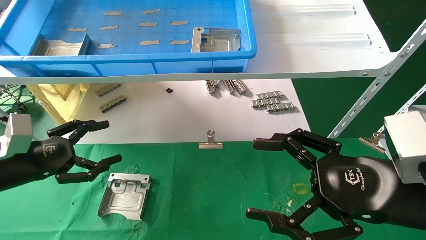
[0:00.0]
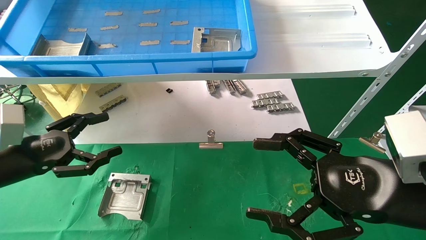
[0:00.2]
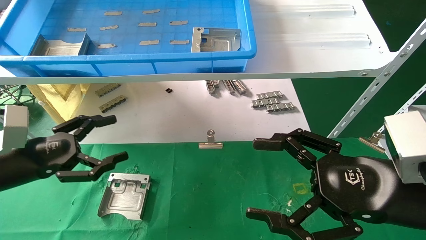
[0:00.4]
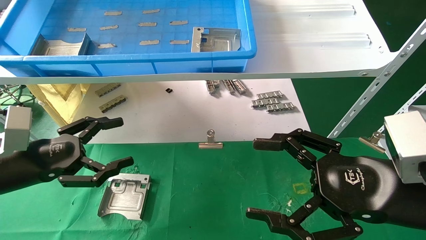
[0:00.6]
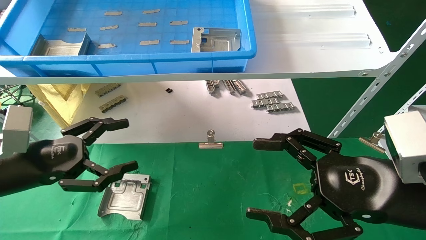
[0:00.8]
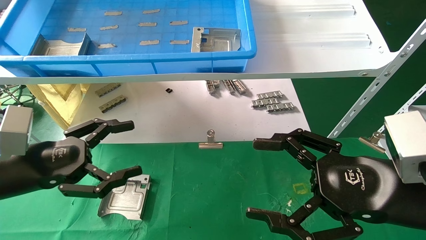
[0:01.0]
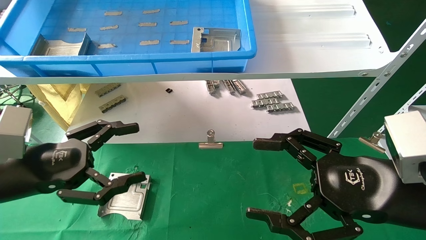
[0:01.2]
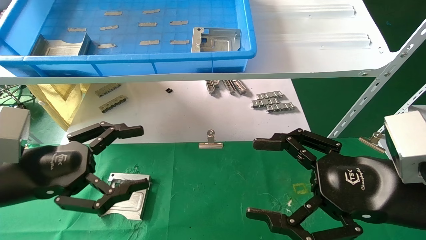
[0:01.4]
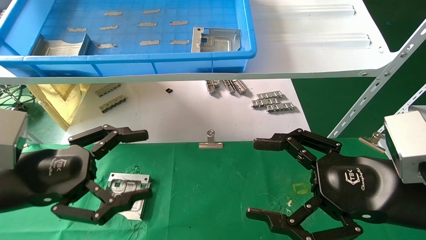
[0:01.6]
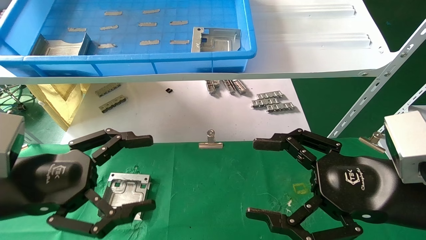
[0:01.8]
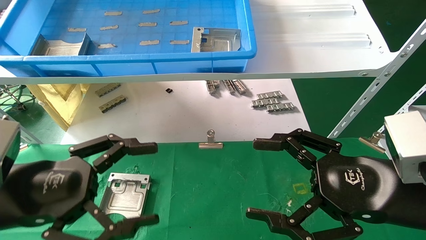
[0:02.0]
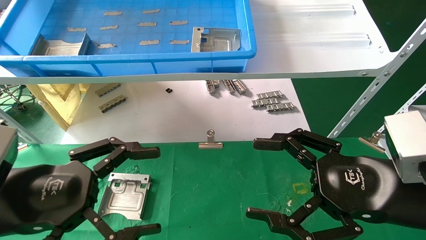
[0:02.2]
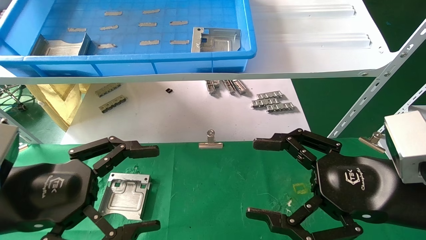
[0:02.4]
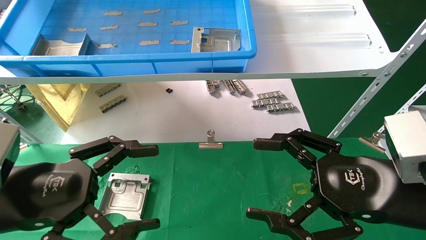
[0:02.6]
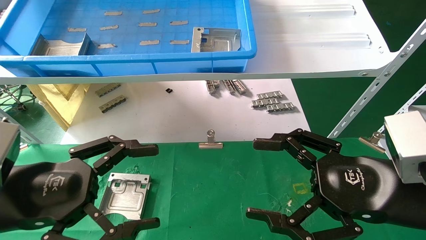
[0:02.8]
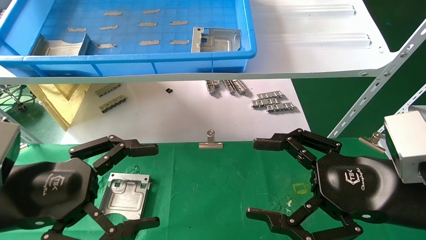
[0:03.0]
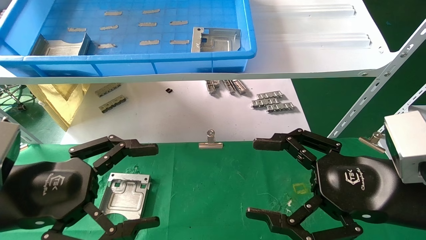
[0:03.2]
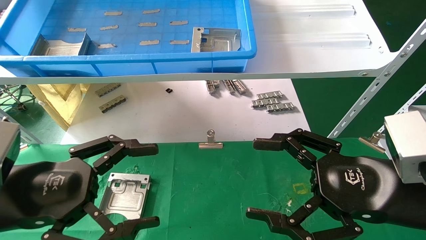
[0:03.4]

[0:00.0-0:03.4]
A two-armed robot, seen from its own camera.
Task of the whole recording: use the mechanical arm to pick up the parts and place them on the table.
0:00.0 to 0:01.6: The left gripper shifts approximately 10 cm to the right and backward.
0:01.6 to 0:03.4: The grippers make only small movements.

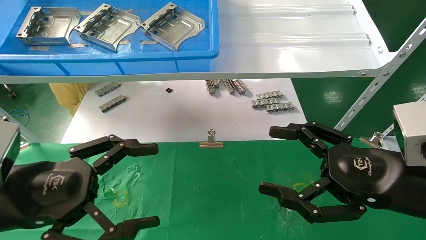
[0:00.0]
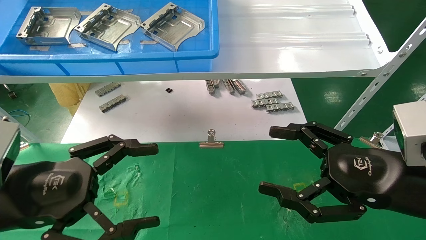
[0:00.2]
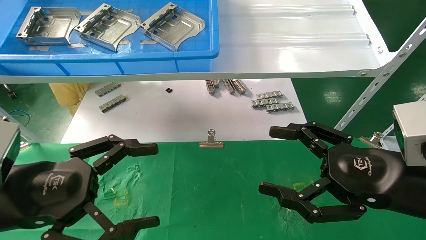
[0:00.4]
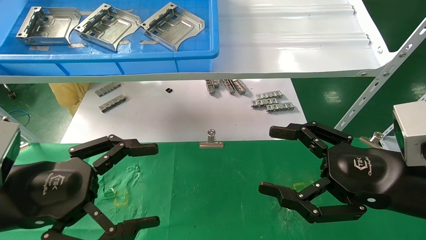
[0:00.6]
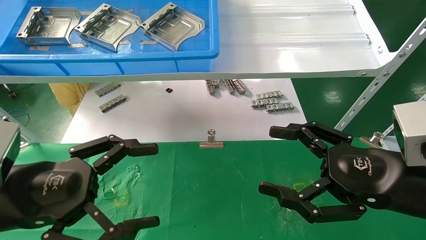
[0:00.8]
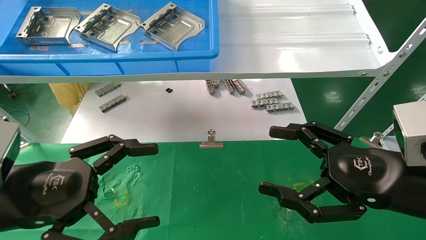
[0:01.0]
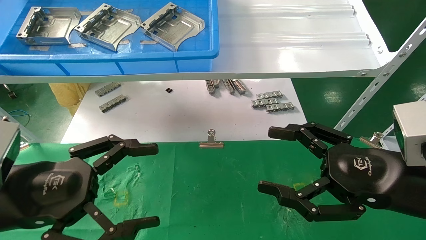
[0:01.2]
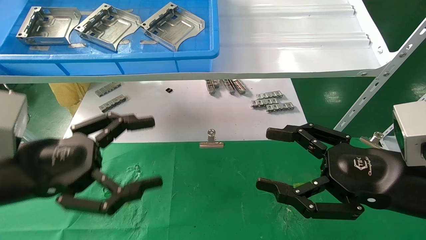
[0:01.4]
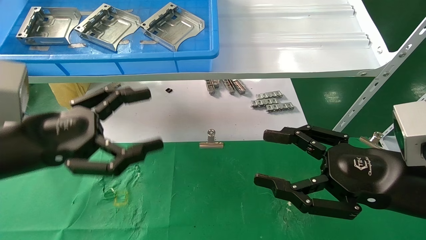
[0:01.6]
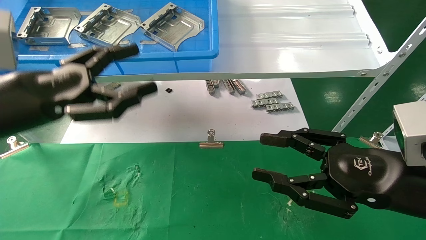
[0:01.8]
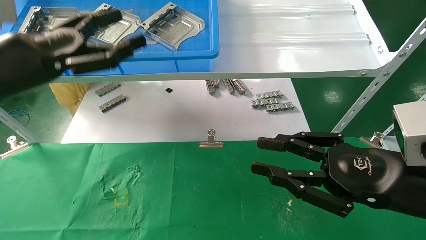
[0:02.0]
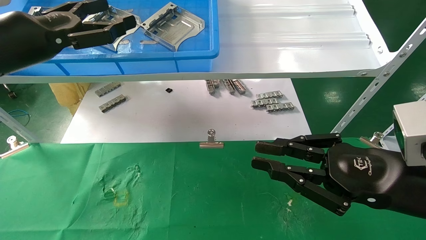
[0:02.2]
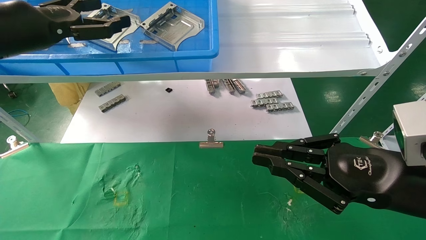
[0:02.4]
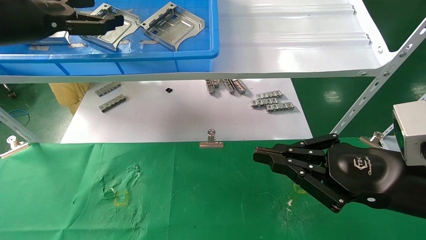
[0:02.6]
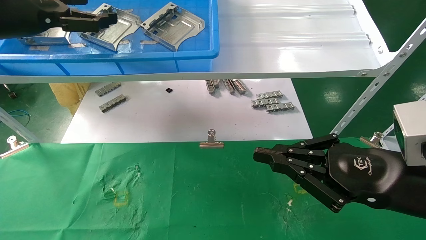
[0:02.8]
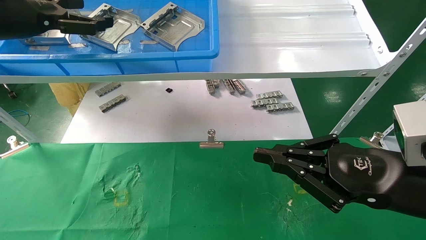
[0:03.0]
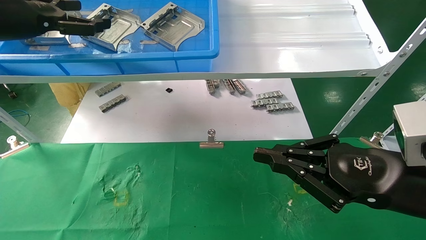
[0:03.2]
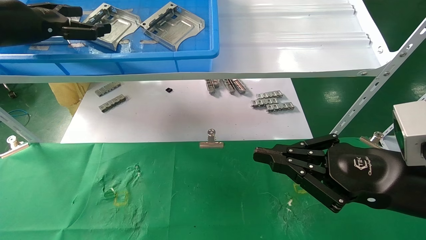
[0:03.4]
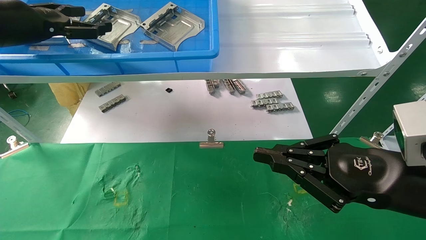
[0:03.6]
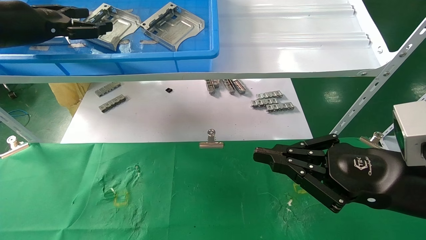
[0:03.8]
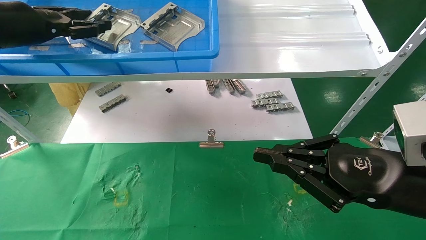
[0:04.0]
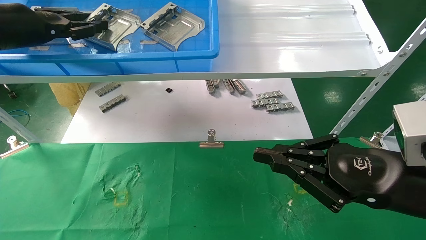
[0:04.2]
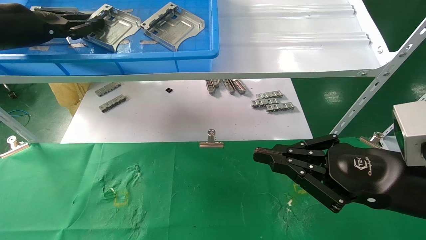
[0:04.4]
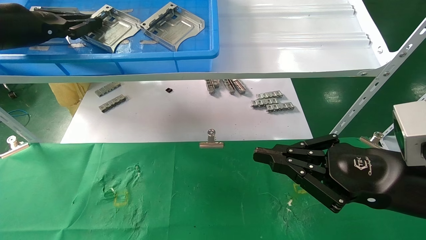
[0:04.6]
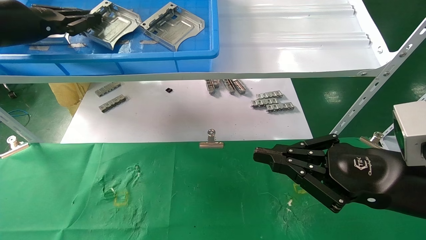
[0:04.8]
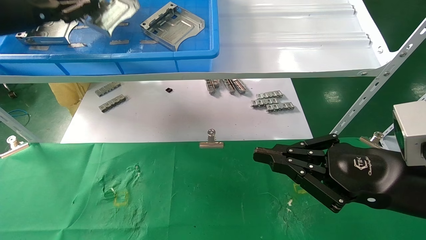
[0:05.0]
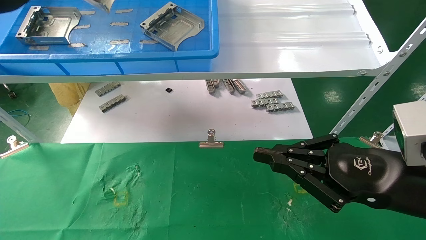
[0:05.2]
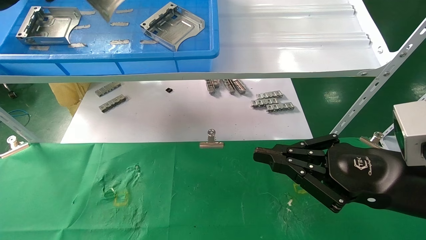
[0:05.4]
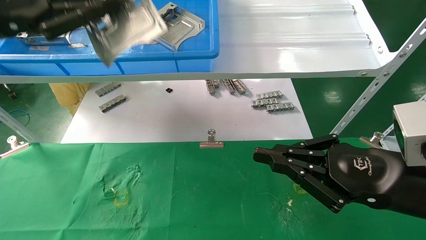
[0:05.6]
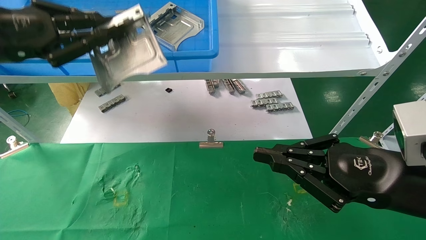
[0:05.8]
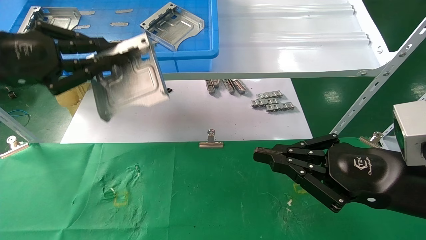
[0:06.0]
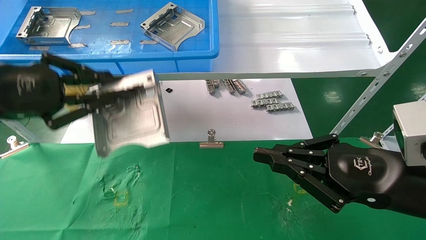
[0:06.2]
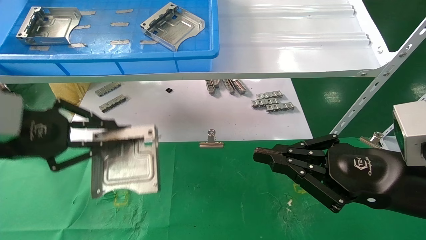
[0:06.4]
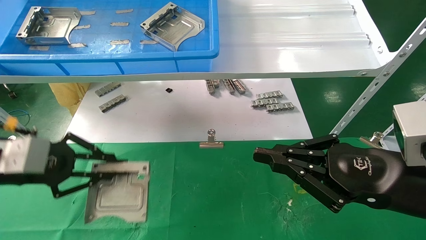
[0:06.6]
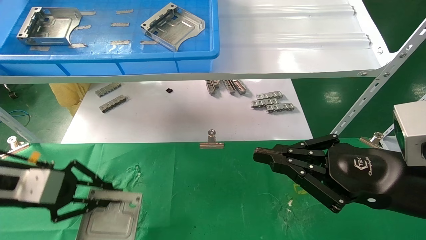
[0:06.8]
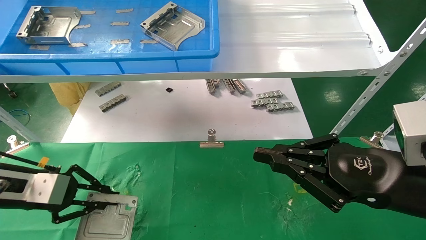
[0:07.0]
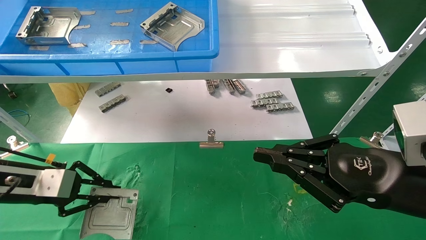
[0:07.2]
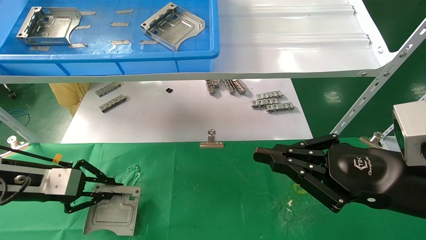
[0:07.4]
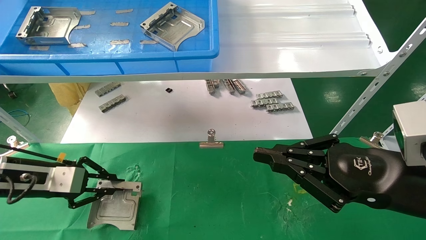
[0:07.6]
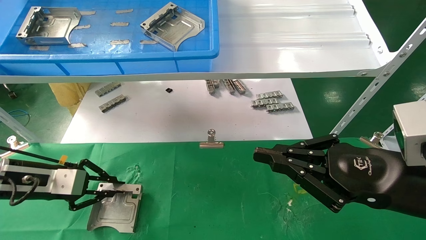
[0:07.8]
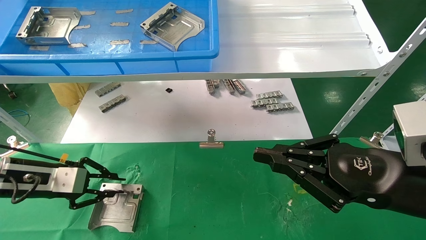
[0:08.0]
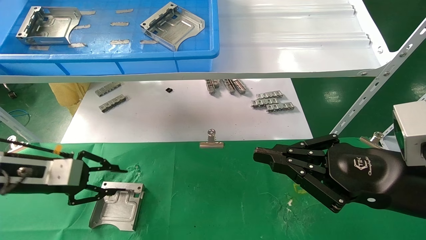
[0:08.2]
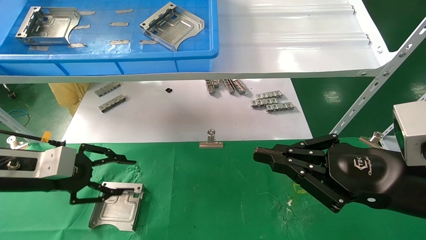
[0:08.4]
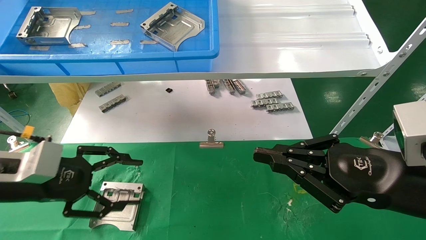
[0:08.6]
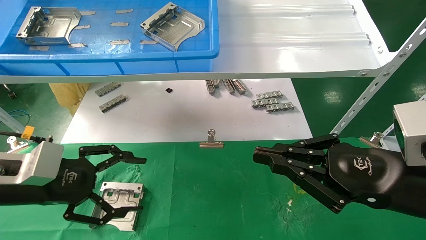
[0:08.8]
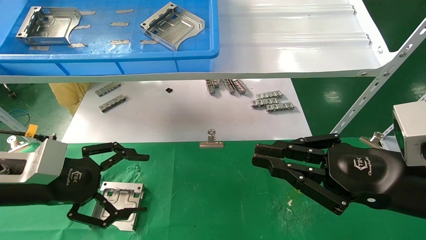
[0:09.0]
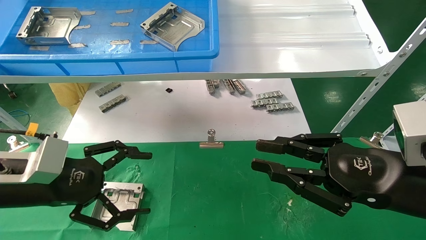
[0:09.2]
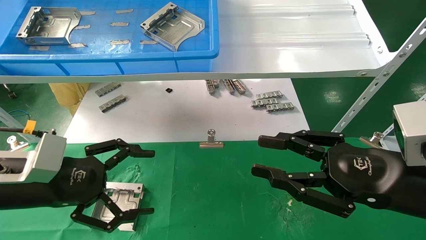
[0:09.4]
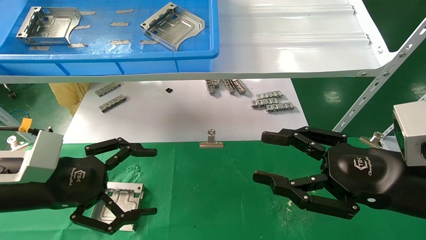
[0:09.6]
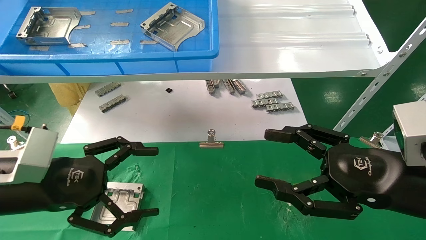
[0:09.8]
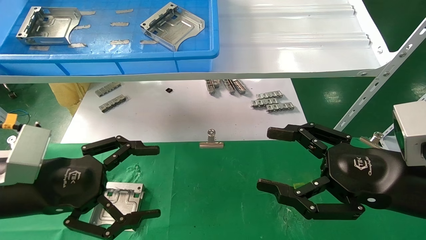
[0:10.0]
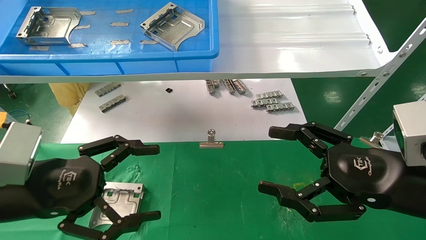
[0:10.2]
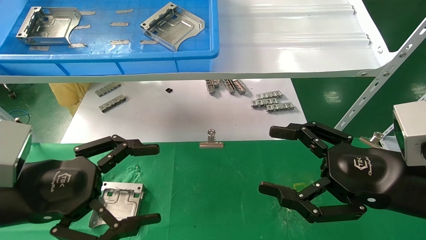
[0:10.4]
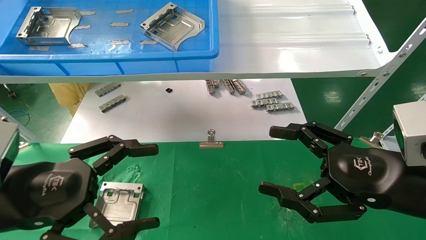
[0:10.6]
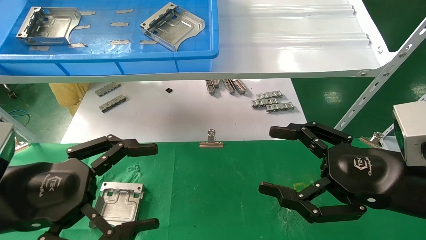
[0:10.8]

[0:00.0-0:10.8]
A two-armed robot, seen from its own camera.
Task of the whole recording: use the mechanical arm to pick up the parts and place them on the table.
Step, 0:01.6 to 0:04.8: Pick up the hard drive bracket from the feeding area.
Step, 0:05.0 to 0:08.2: Place the hard drive bracket into the box.
0:00.0 to 0:01.6: The left gripper changes place by roughly 5 cm.
0:01.6 to 0:03.0: The left gripper goes some 20 cm upward, forward and to the left. Meanwhile the right gripper closes up.
0:03.0 to 0:04.6: The left gripper closes its fingers.
0:04.6 to 0:06.2: The left gripper moves backward and downward, roughly 15 cm.
0:06.2 to 0:07.8: The left gripper goes about 20 cm downward and forward.
0:07.8 to 0:09.2: The left gripper is displaced backward and to the right by approximately 10 cm, and opens up.
0:09.2 to 0:10.8: The right gripper opens its fingers; the left gripper shifts roughly 10 cm backward.

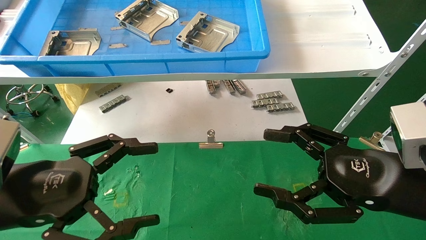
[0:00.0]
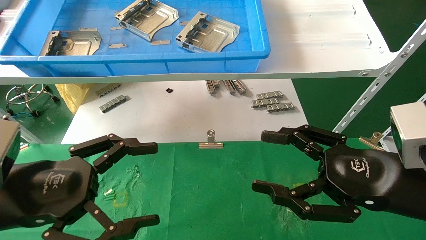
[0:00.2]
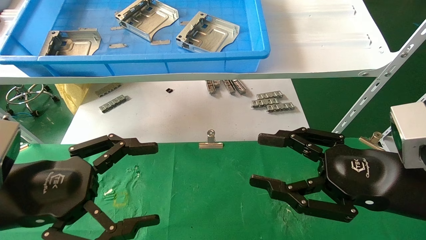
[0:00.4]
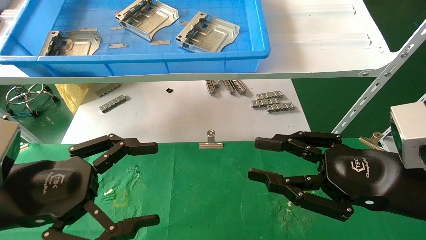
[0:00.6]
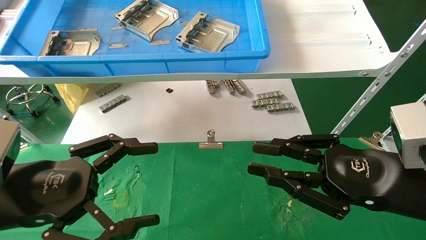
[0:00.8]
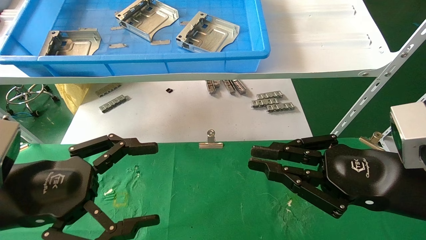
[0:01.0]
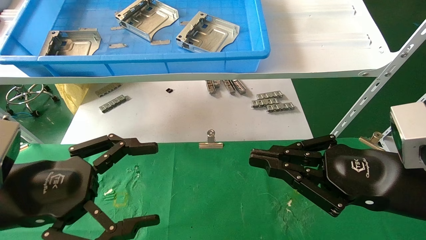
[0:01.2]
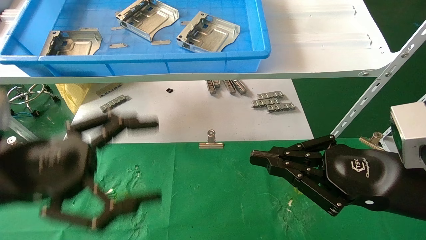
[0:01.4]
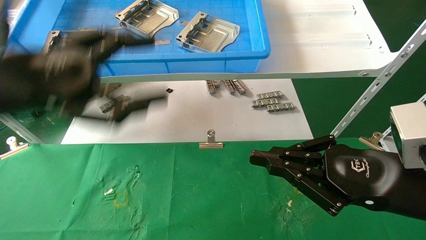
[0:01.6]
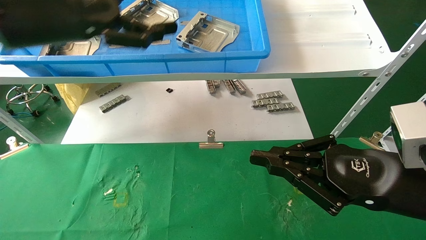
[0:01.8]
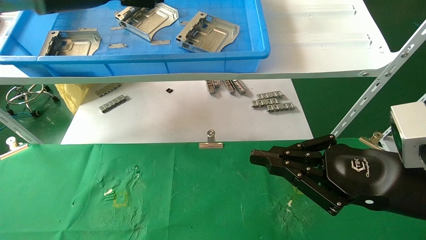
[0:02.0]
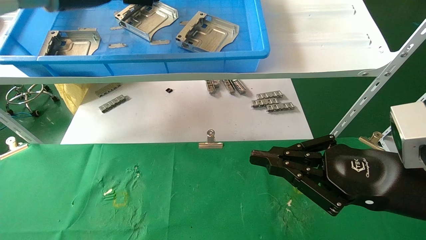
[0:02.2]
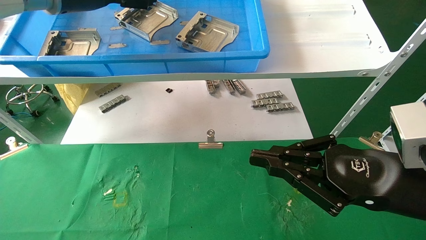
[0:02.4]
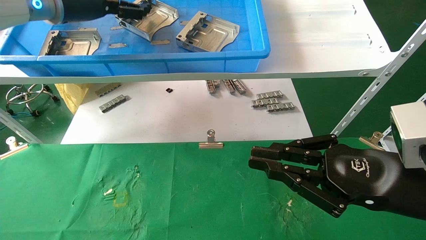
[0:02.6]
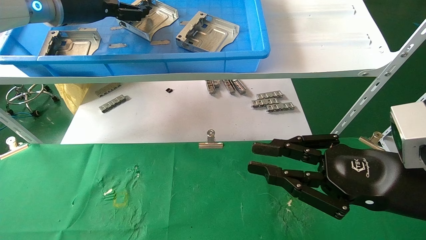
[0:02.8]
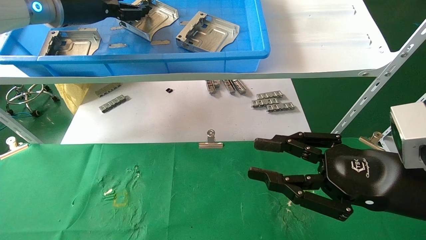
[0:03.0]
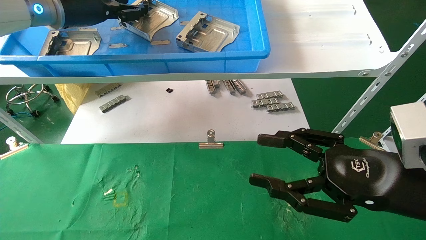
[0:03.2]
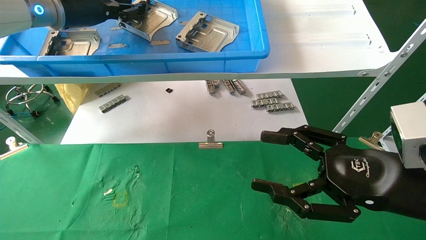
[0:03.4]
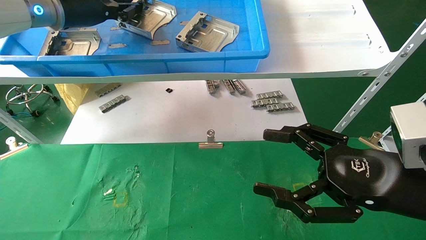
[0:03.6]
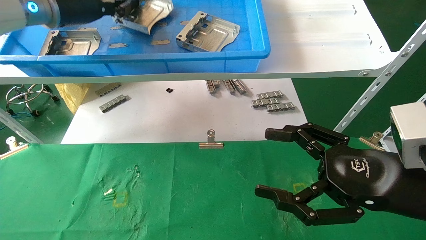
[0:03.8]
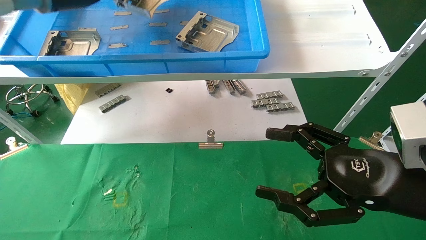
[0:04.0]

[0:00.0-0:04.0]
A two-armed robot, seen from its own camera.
Task of the whole recording: use the mechanical arm to pick up the parts and place them on the table.
Step, 0:01.6 to 0:03.8: Pick up the hard drive bracket from the feeding area.
0:00.0 to 0:01.4: The left gripper heads upward, covering some 5 cm. Meanwhile the right gripper closes.
0:01.4 to 0:02.6: The left gripper is displaced forward and upward by about 25 cm.
0:02.6 to 0:04.0: The left gripper closes up. Meanwhile the right gripper opens up.
